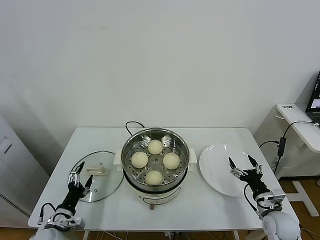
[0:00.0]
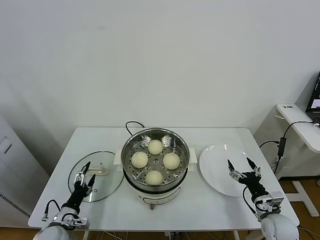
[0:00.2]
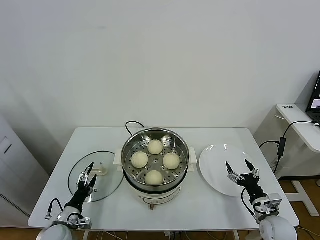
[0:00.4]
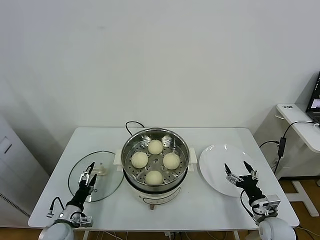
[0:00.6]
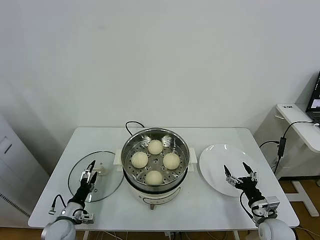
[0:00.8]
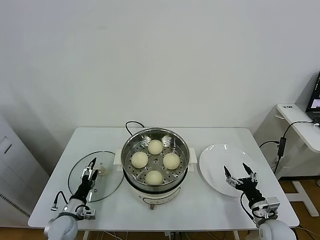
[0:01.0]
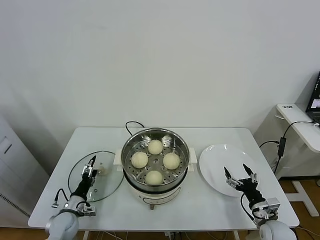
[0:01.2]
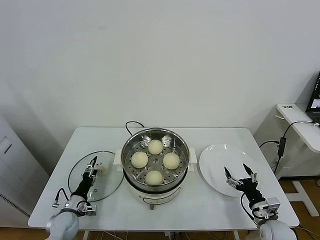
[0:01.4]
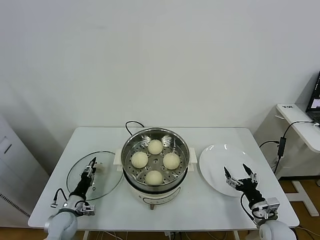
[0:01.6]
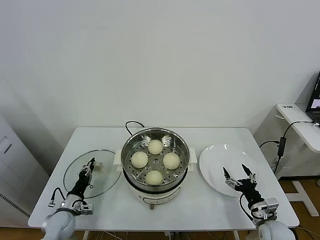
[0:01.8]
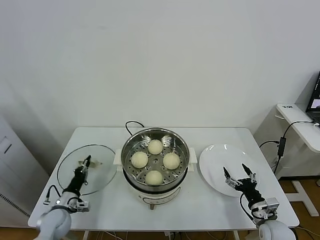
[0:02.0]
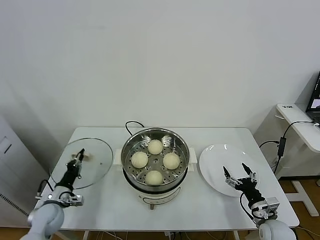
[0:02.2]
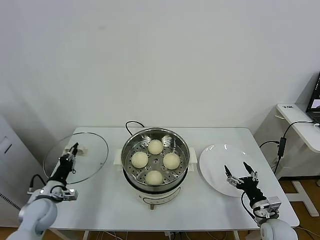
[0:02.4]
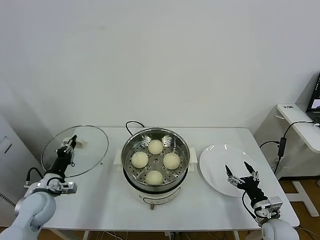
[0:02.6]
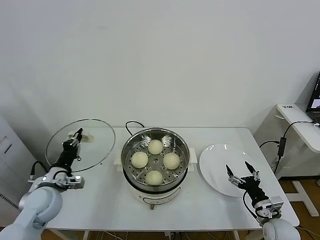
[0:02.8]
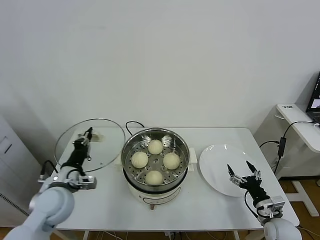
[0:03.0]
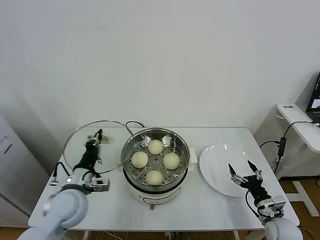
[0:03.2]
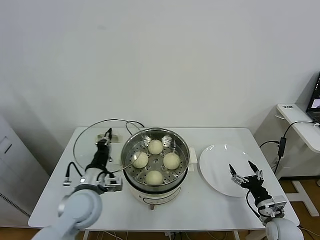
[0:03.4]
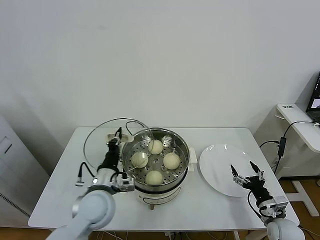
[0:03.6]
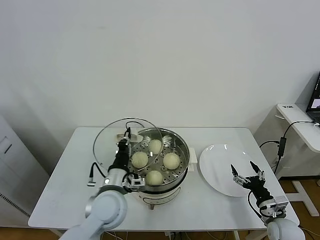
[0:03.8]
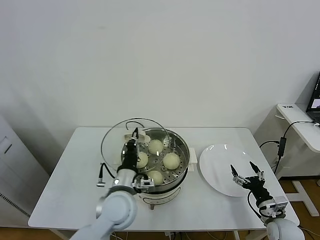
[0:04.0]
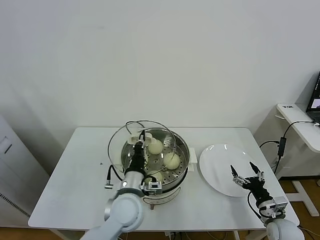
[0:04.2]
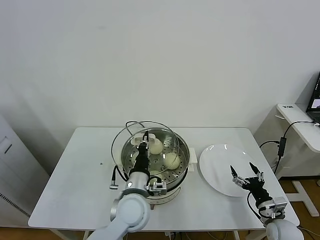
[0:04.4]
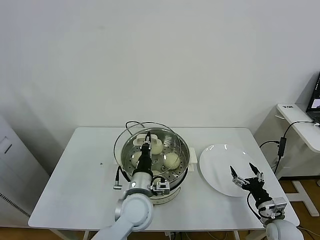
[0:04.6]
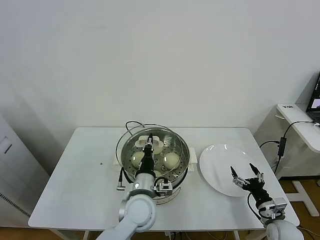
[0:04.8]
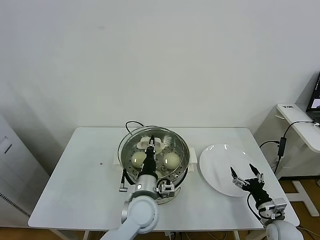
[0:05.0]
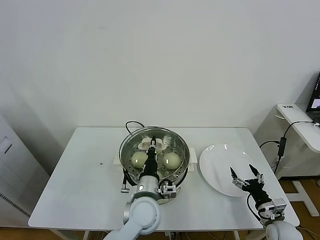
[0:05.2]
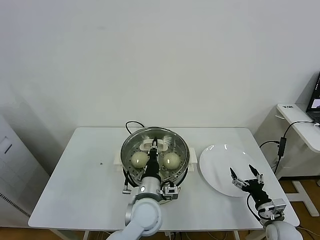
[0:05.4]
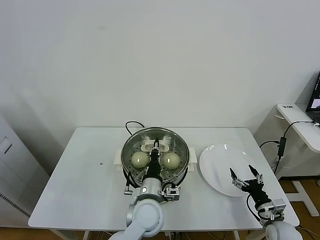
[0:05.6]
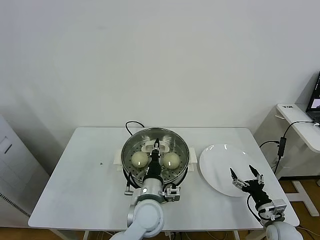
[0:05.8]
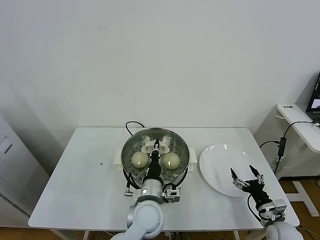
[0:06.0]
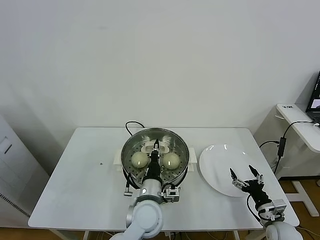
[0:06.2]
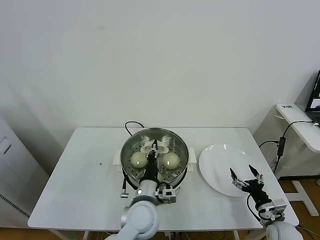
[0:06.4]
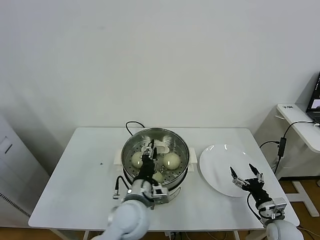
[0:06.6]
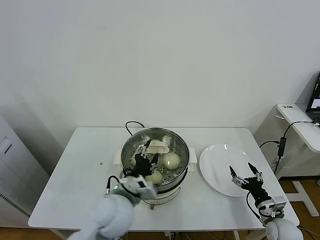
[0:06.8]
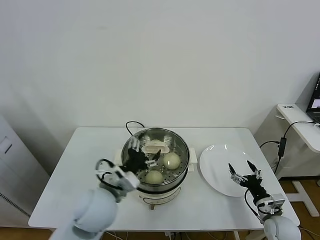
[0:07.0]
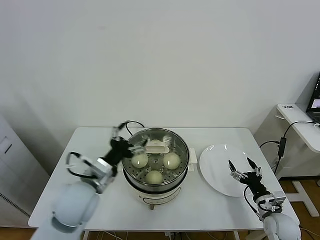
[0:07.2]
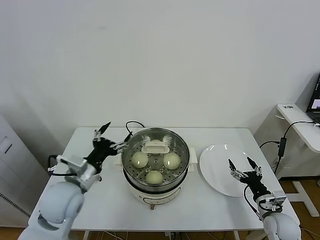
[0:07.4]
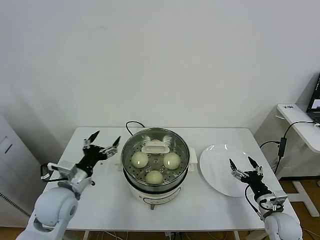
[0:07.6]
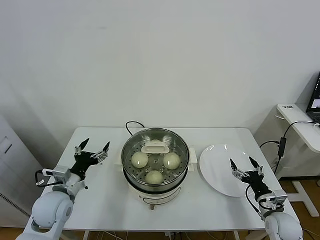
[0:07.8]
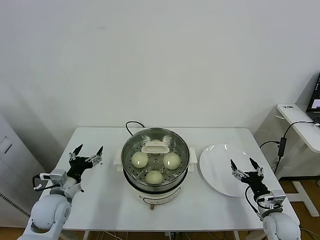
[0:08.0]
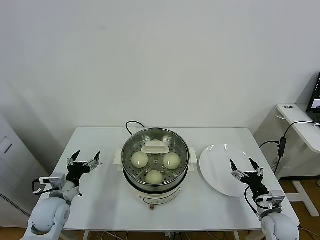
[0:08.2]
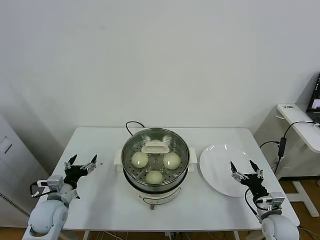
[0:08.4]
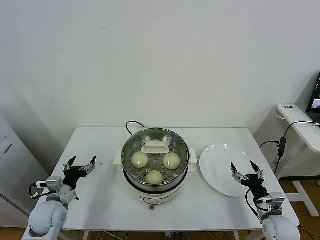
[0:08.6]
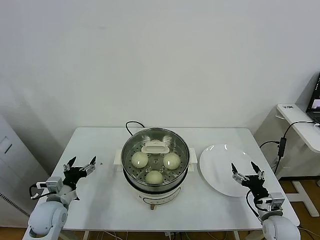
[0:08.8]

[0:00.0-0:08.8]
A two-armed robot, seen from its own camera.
Task of the whole recording: take steamed baozi put them in steamer.
Step, 0:00.0 to 0:02.2: Grasp the pot lid with left gripper.
Step, 0:02.4 to 0:07.0: Place the pot lid on the steamer with left gripper.
0:00.0 to 0:01.4: The left gripper shifts approximately 10 cm forward and downward.
0:01.4 to 0:03.0: The left gripper shifts about 20 cm upward, and closes its fingers.
0:03.0 to 0:04.4: The left gripper goes about 20 cm to the right.
0:04.4 to 0:05.8: The left gripper ends up some 5 cm from where it was.
0:05.8 to 0:07.4: The left gripper shifts some 25 cm to the left and upward, and opens.
0:07.4 to 0:08.8: The left gripper moves downward and to the left, approximately 20 cm.

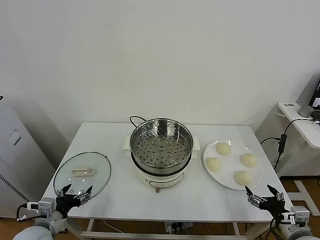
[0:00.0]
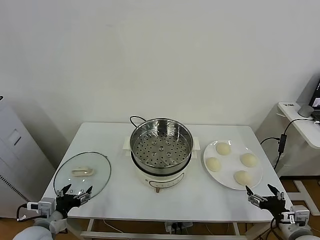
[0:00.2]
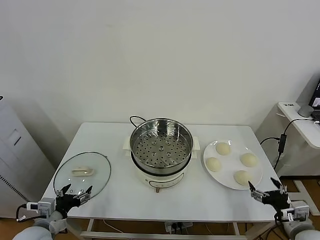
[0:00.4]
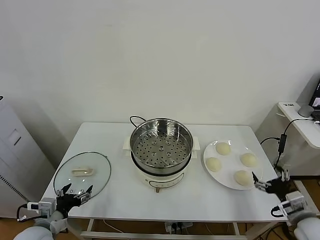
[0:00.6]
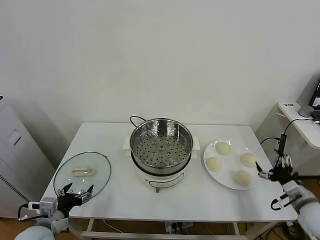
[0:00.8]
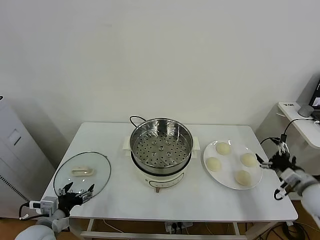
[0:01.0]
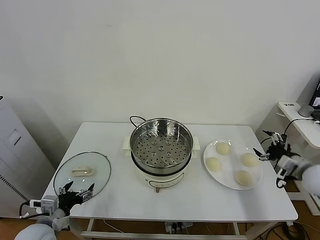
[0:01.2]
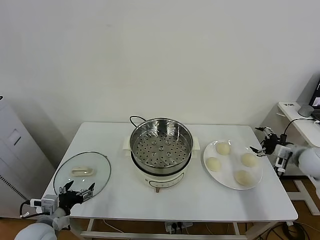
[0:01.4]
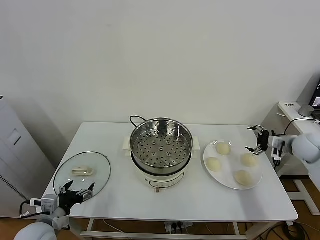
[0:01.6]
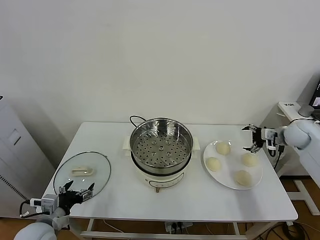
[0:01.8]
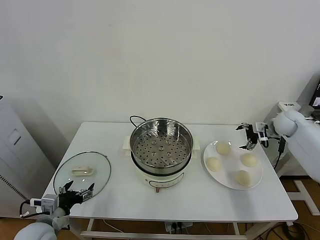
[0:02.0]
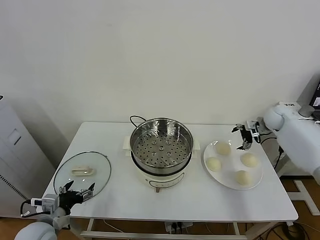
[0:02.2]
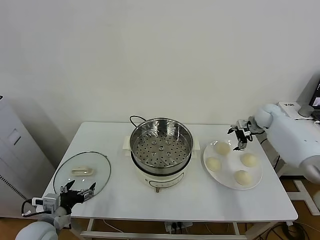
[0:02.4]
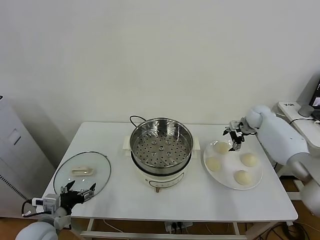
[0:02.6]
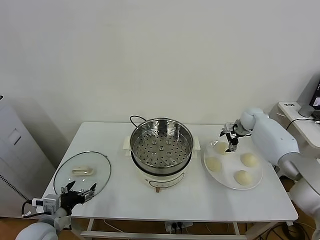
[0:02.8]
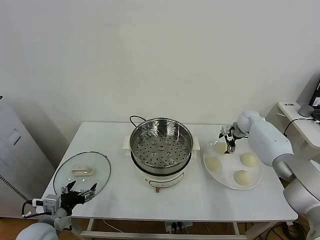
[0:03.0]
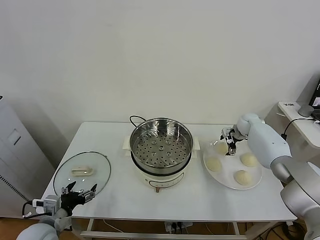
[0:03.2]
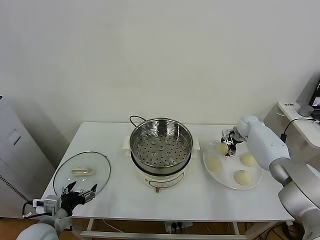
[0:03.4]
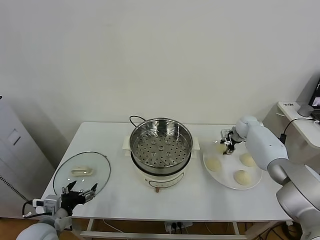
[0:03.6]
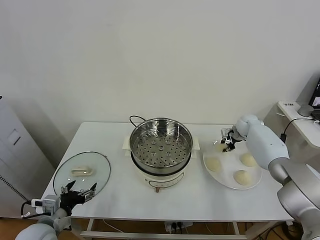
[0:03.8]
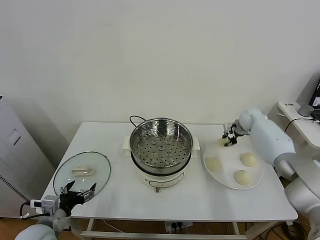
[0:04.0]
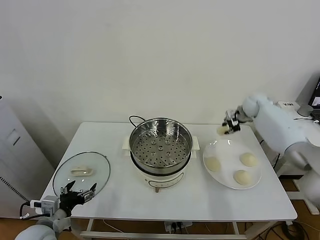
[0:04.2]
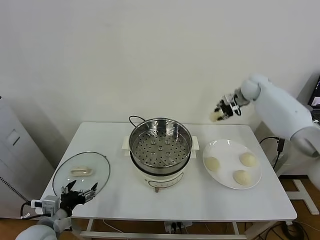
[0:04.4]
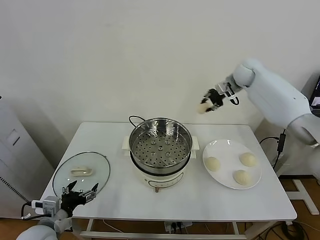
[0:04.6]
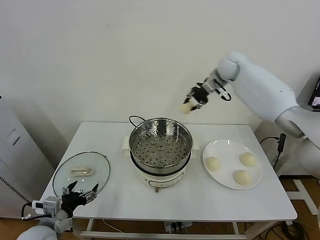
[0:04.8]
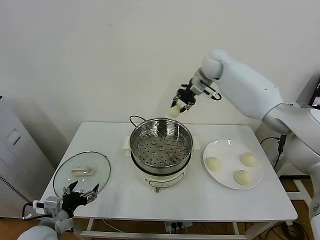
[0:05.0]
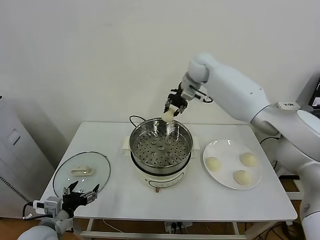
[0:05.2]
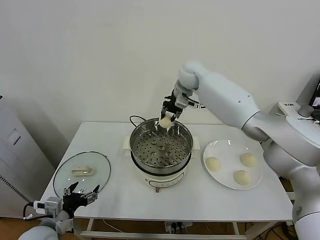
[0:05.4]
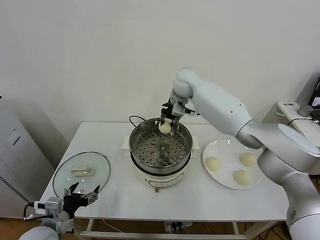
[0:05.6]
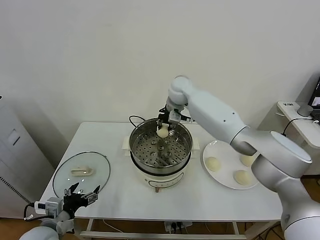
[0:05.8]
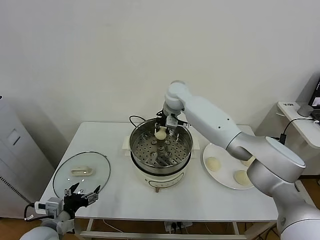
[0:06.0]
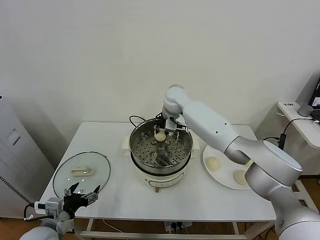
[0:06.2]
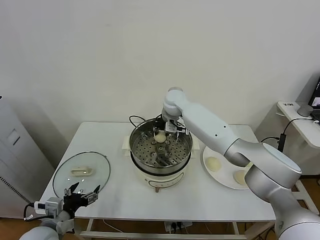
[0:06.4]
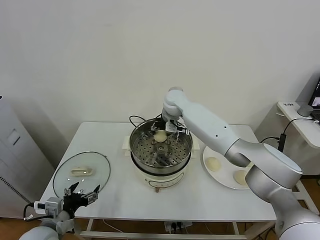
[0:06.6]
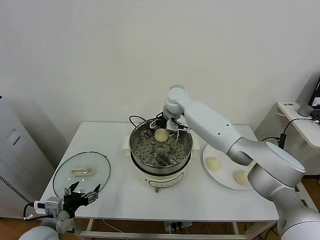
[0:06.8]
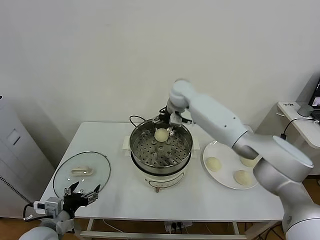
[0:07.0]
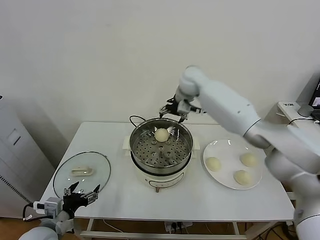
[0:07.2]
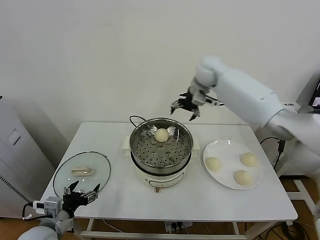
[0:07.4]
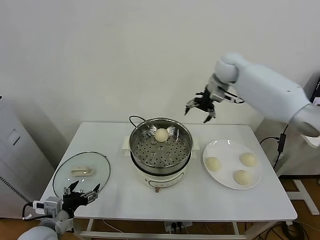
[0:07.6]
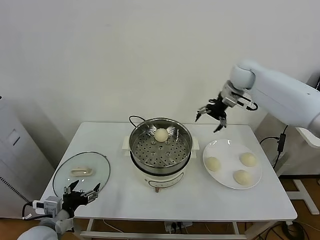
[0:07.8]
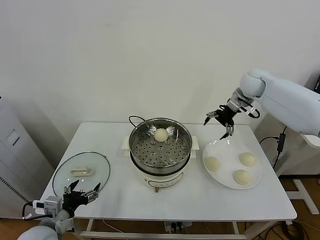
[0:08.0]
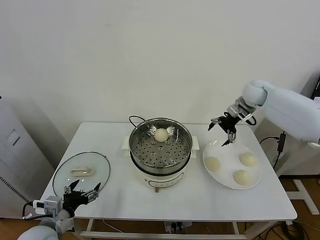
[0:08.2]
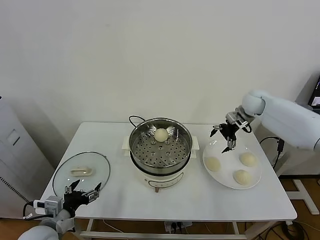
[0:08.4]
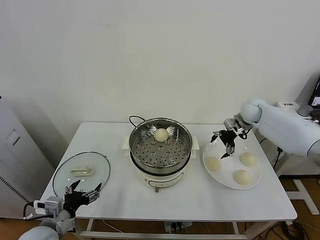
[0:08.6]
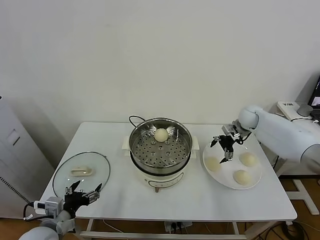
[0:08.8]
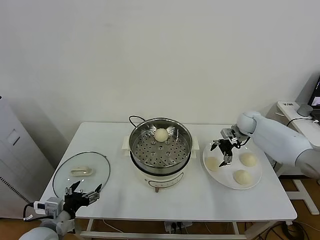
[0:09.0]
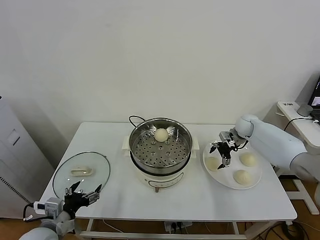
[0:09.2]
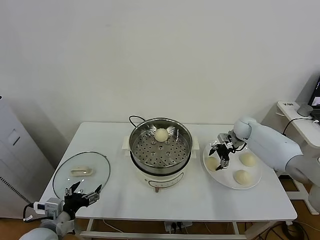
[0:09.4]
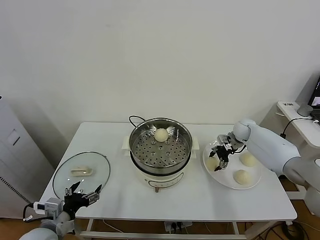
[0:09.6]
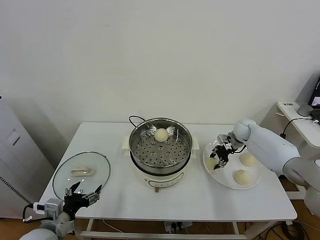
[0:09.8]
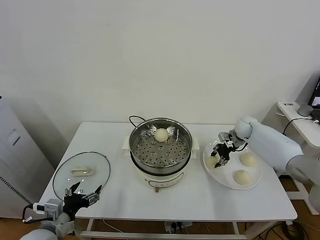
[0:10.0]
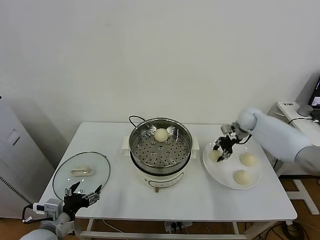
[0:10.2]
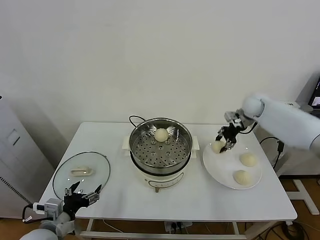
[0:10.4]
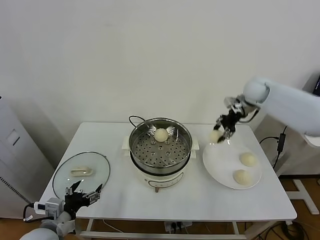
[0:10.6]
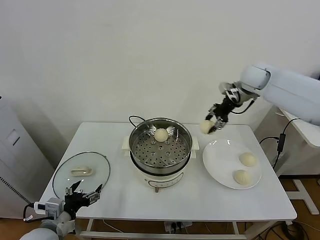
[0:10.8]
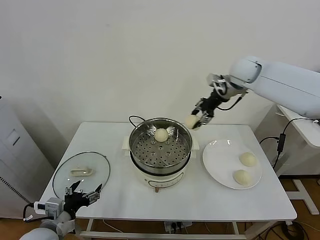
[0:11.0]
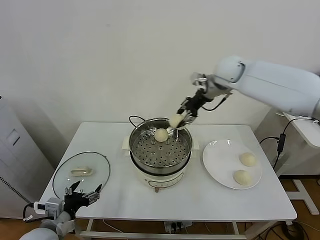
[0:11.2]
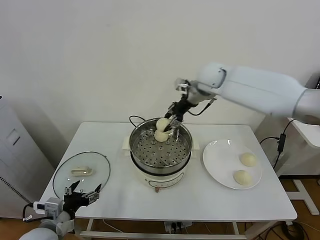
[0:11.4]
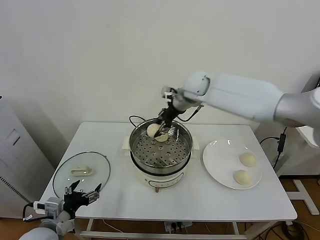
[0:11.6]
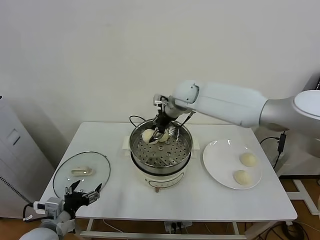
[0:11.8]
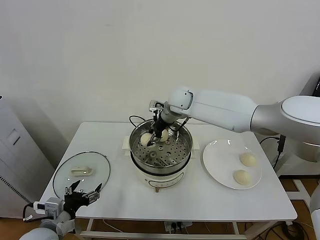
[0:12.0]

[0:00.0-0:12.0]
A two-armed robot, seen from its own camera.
Task of the whole recording: take steamed baozi put them in steamer.
Step, 0:00.0 to 0:03.8: Grasp the baozi in the plate with right gripper.
Step, 0:04.0 to 0:06.8: Place the baozi on the steamer with right gripper.
Step, 0:07.0 to 0:09.8: Grasp the baozi in the plate with right gripper.
0:01.6 to 0:03.0: The right gripper is displaced forward, to the left and downward by some 20 cm.
0:03.0 to 0:04.4: The right gripper shifts approximately 20 cm upward, and closes.
0:04.4 to 0:06.0: The right gripper moves to the left, about 30 cm.
0:06.0 to 0:07.6: The right gripper moves to the right and upward, some 25 cm, and opens up.
0:07.6 to 0:09.0: The right gripper heads downward and to the right, covering about 25 cm.
0:09.0 to 0:10.4: The right gripper shifts some 10 cm upward, and closes.
0:10.4 to 0:12.0: The right gripper travels to the left by roughly 30 cm.

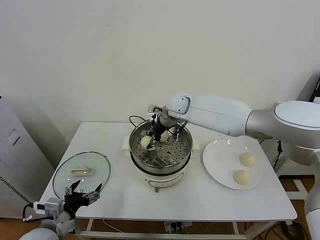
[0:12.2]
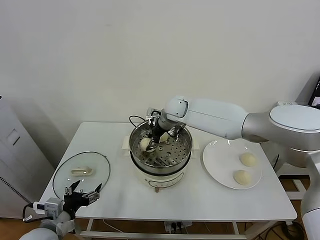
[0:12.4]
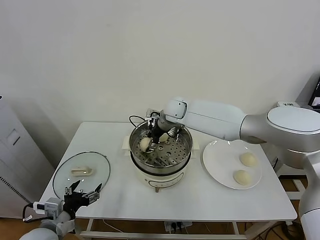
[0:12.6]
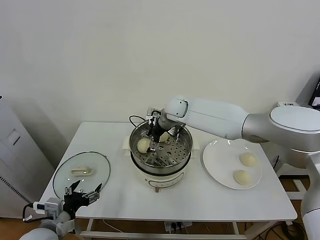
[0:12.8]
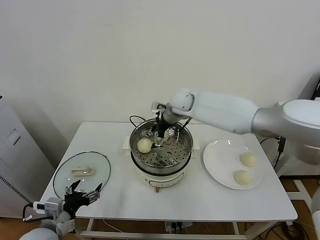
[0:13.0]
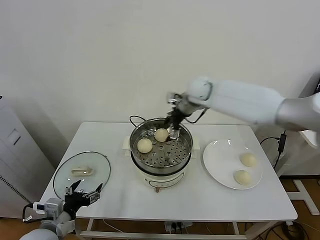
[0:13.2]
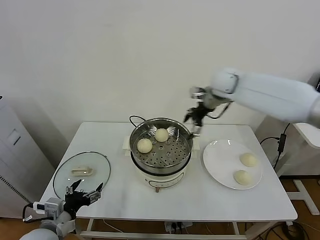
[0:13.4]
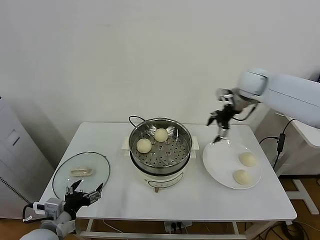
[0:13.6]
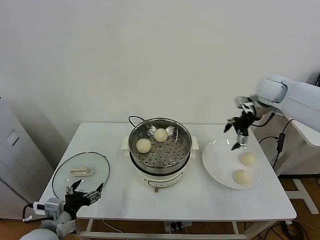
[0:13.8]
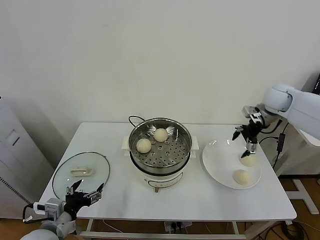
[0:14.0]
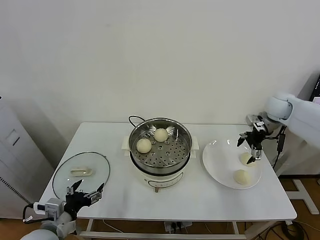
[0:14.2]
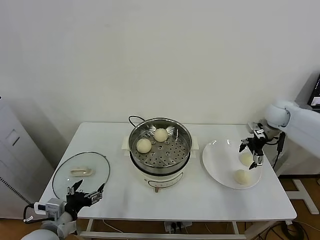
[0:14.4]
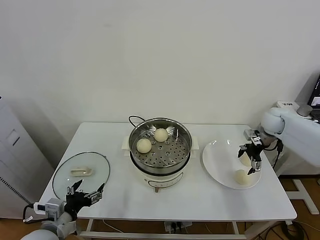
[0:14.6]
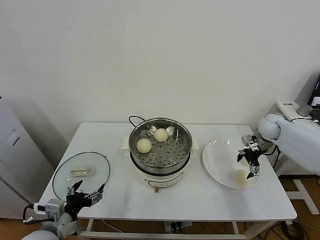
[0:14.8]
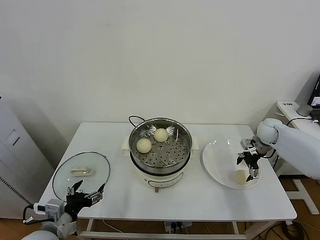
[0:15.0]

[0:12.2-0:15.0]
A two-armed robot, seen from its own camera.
Task of the whole recording: take steamed baozi put them in steamer.
0:12.2 to 0:13.6: The right gripper goes some 25 cm to the right, and opens its fingers.
0:13.6 to 0:15.0: The right gripper heads downward and to the right, covering roughly 25 cm.
